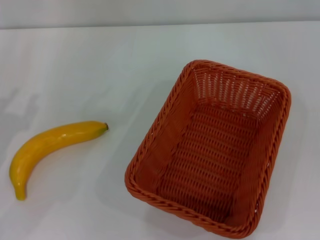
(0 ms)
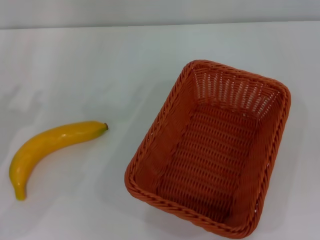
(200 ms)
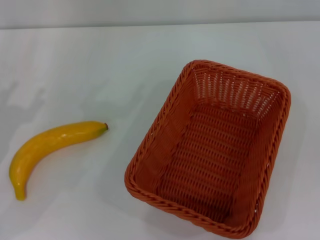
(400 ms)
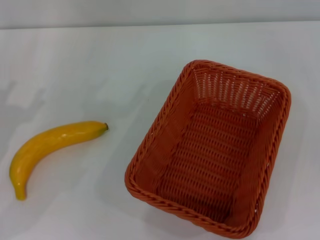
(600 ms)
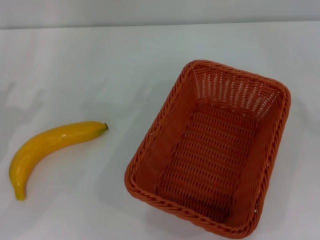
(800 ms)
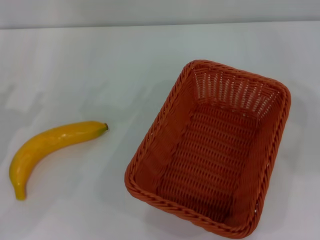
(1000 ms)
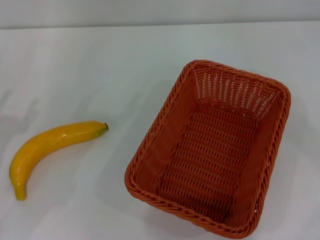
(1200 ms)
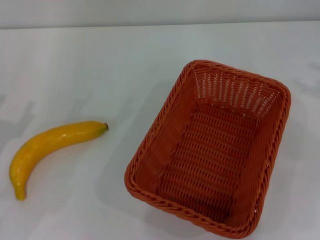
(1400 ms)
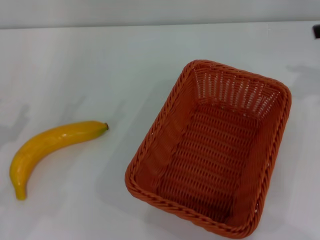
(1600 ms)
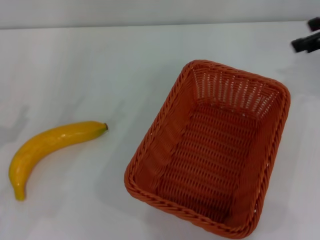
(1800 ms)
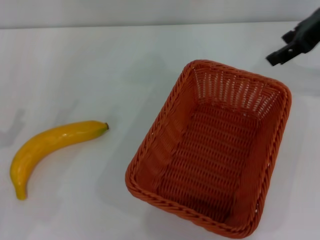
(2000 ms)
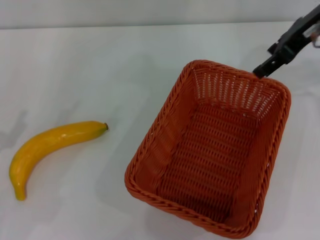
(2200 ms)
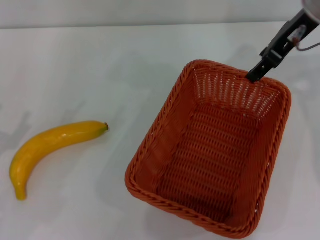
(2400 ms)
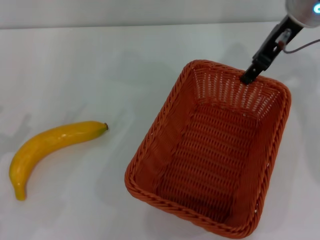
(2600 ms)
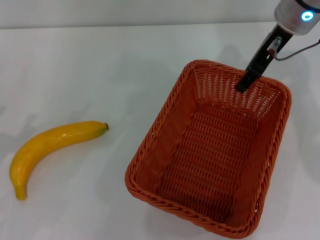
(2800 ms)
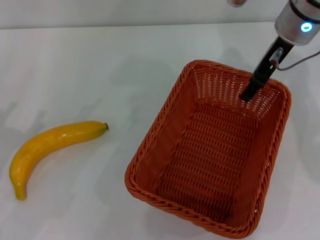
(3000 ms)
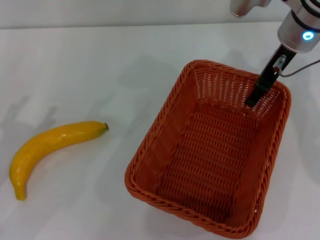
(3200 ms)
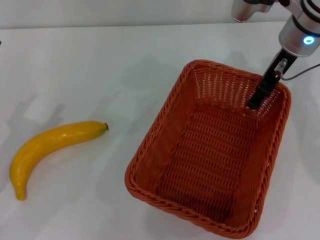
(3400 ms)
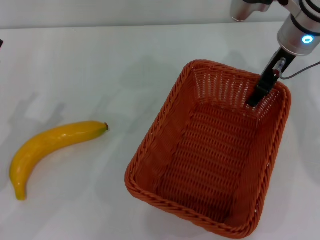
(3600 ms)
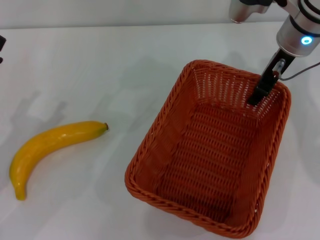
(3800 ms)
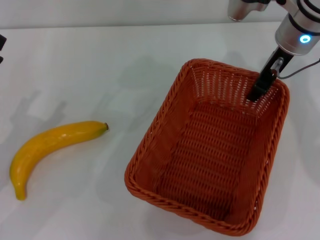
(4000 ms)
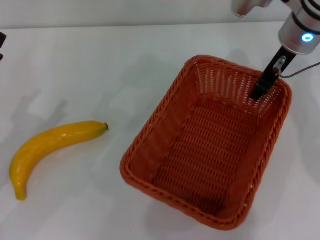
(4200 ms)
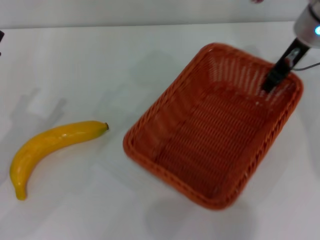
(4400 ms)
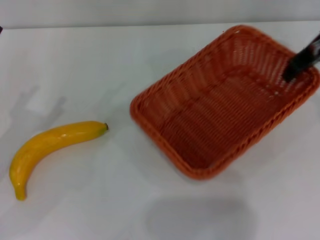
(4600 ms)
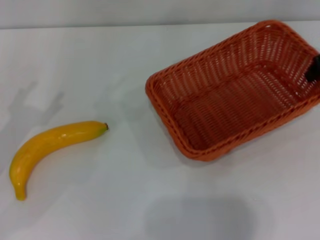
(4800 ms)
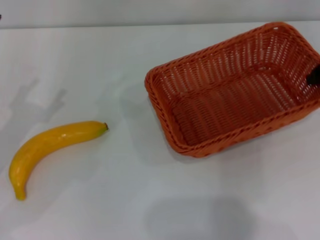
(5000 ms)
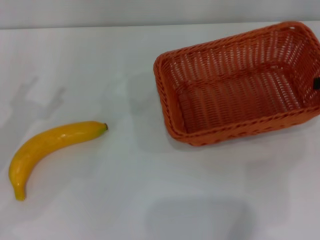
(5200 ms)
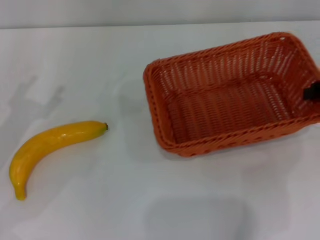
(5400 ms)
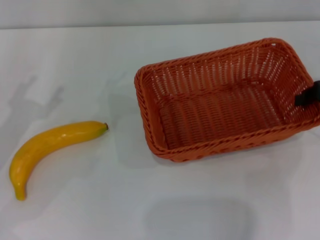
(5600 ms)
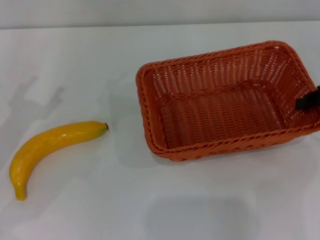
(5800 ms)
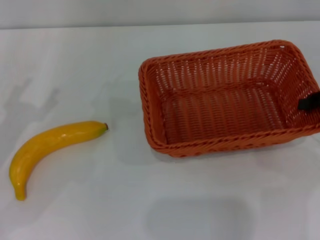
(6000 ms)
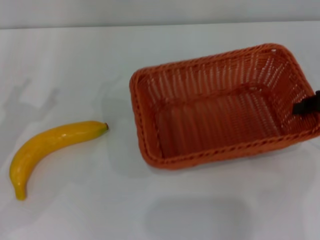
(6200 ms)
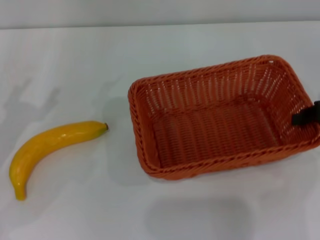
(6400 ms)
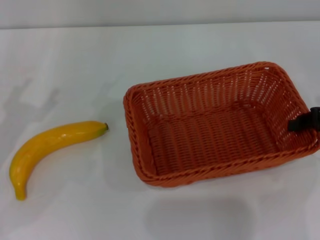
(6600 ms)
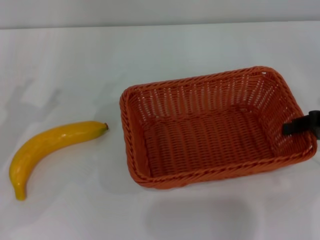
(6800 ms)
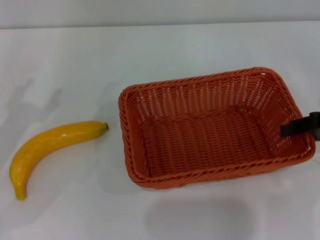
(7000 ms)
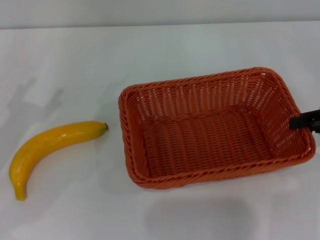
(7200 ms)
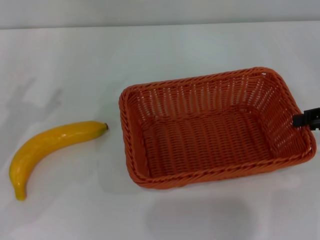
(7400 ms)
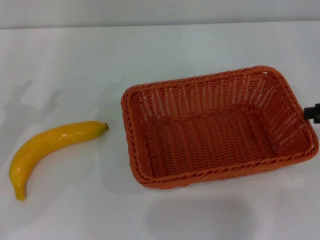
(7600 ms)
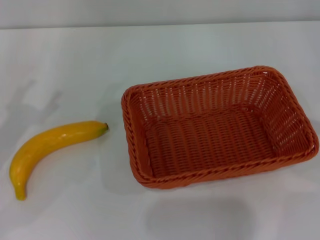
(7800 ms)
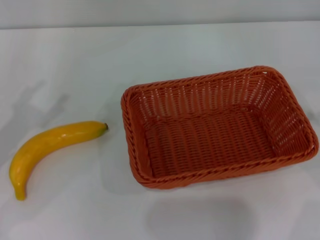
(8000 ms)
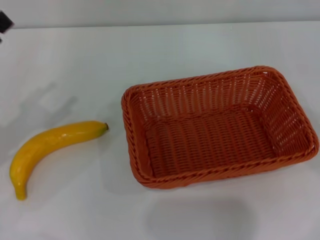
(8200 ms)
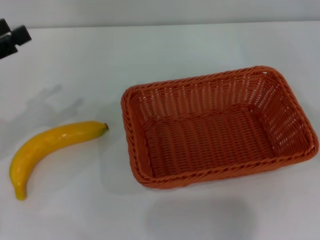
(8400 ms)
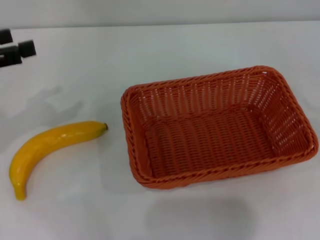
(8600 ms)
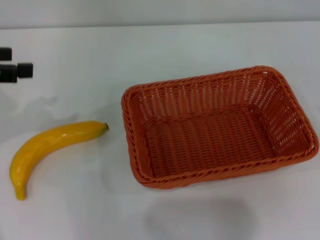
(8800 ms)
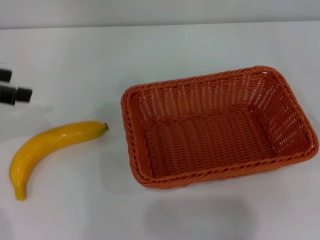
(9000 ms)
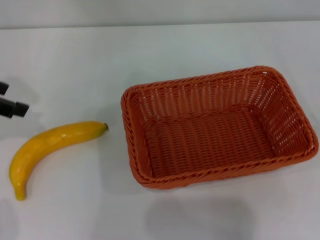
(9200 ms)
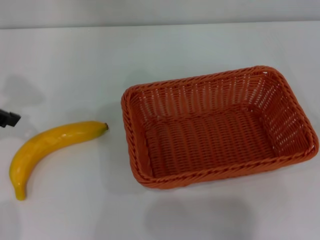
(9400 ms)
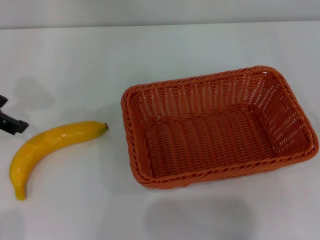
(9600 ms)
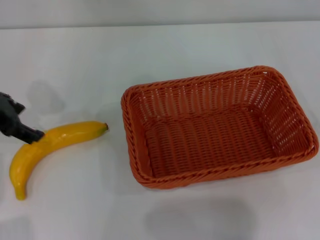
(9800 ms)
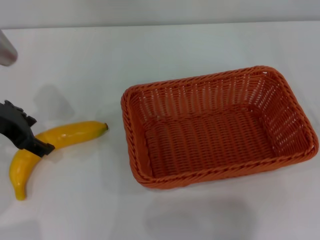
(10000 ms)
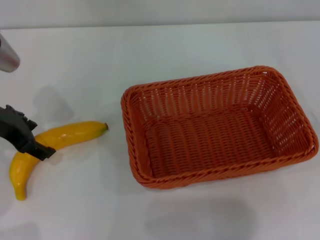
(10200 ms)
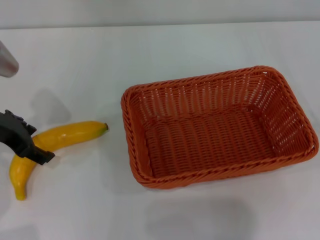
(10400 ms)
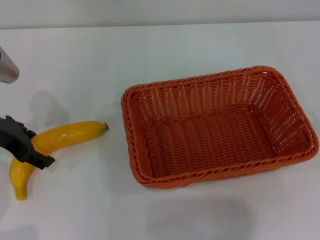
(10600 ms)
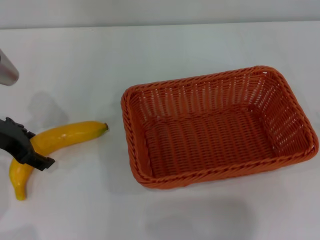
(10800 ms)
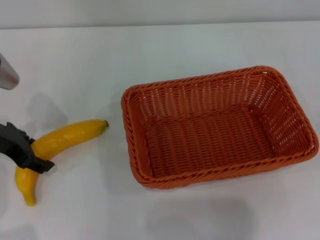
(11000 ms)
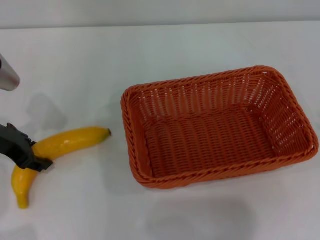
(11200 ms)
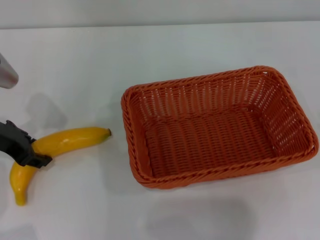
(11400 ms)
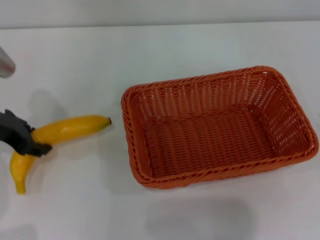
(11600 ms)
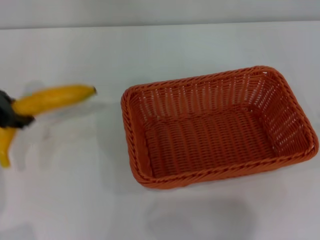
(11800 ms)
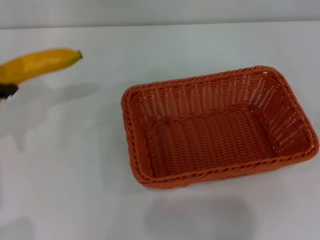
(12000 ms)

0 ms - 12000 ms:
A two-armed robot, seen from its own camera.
Step, 0 ms - 4600 ms: Pick up the light basket with the right gripper.
Step, 4800 ms - 7600 ms: Place the light basket in the center of view with the right gripper.
Step, 7800 ms - 12000 ms: Pick up the banana with the left gripper.
1600 ms - 3000 ms: The right gripper goes about 20 cm to the left and forward.
3000 ms - 4400 ms: The right gripper closes its fingers.
4400 ms - 6000 ms: The right gripper moves backward and to the right, some 20 cm.
6000 ms - 7600 ms: There are only small adjustments of the grippers.
7600 ms - 9000 ms: The left gripper moves upward and forward, roughly 15 cm.
9000 ms - 10400 ms: The left gripper goes approximately 10 cm downward and to the right.
10400 ms - 12000 ms: The left gripper moves upward, some 10 cm, and closes up.

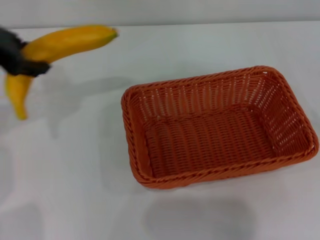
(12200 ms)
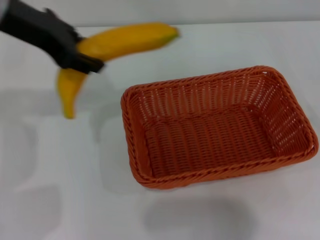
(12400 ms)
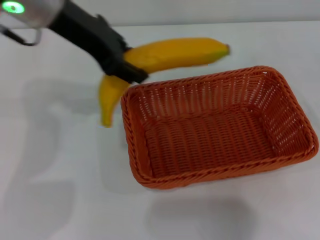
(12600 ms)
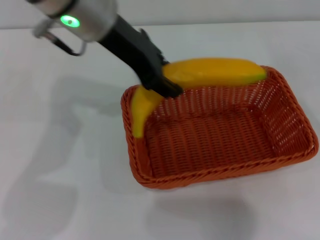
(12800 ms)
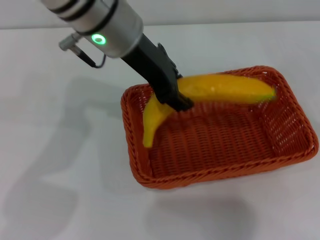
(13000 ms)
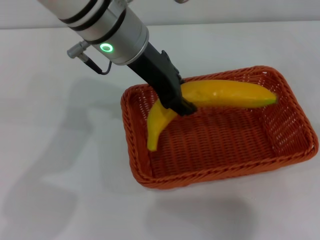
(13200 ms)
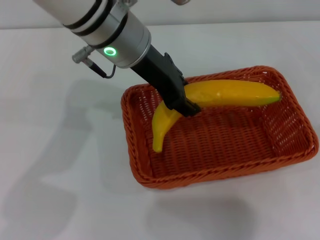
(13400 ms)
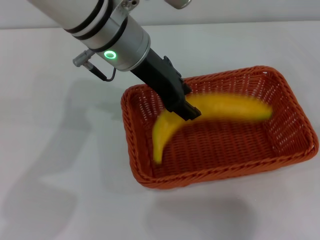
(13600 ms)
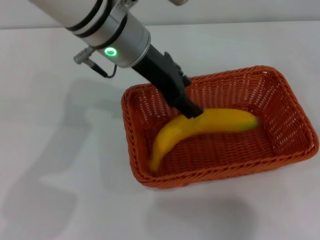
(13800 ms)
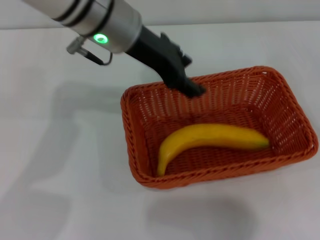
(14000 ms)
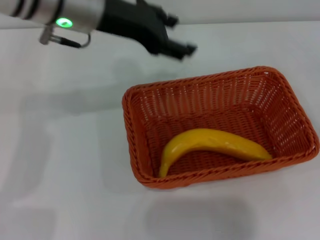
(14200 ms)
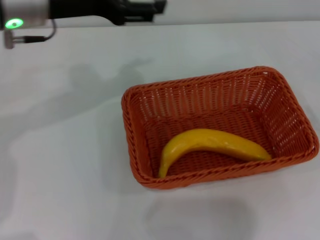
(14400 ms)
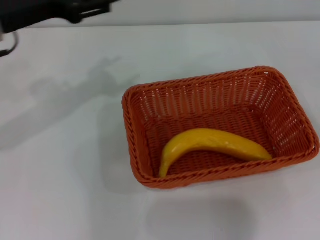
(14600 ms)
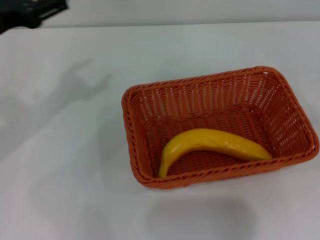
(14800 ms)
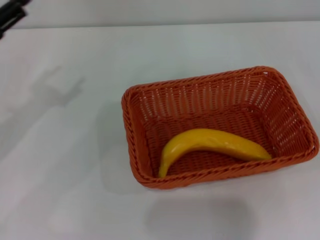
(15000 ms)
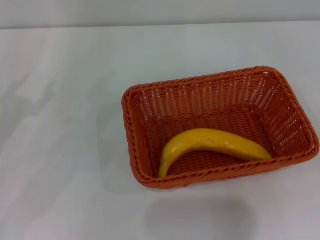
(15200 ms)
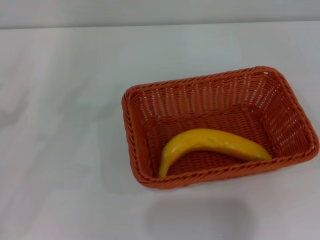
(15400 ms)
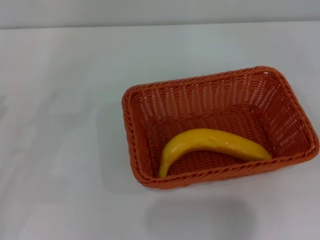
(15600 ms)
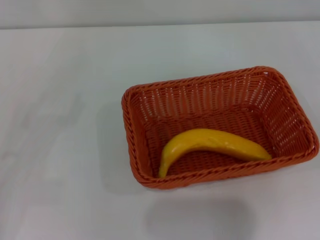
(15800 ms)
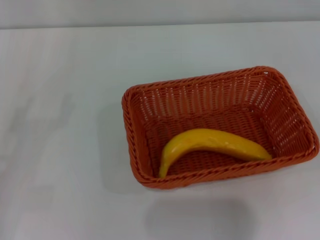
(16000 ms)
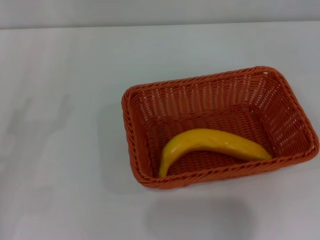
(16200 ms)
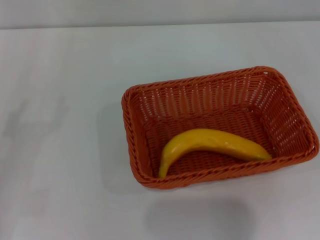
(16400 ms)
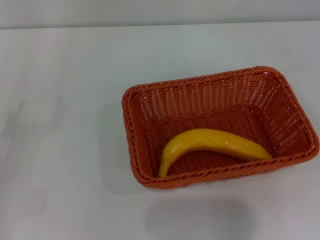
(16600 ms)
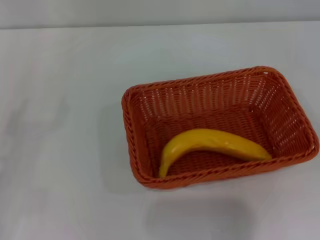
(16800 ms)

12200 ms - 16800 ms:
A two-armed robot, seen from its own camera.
Step, 12200 ms - 14200 ms: Place the banana into the light basket with the left gripper.
12200 ms - 13800 ms: The left gripper is displaced to the right by about 20 cm.
13800 ms - 15200 ms: The left gripper heads to the left and backward, covering roughly 30 cm, and opens.
